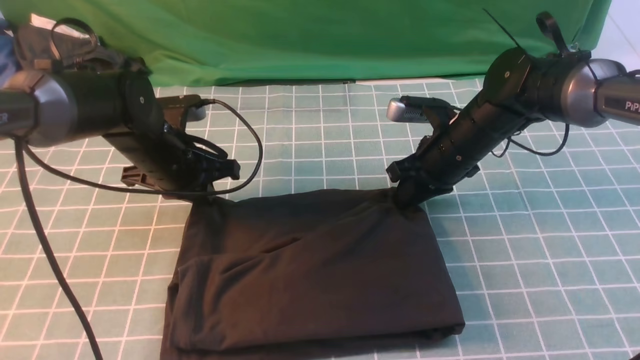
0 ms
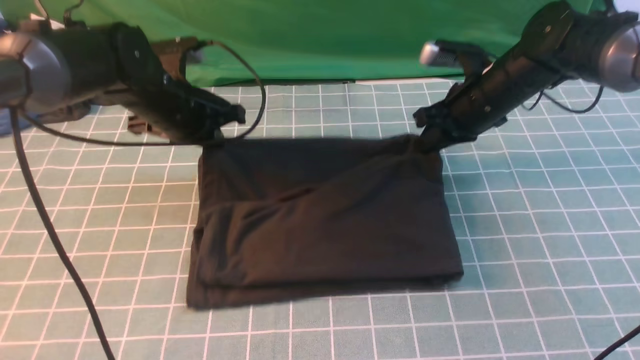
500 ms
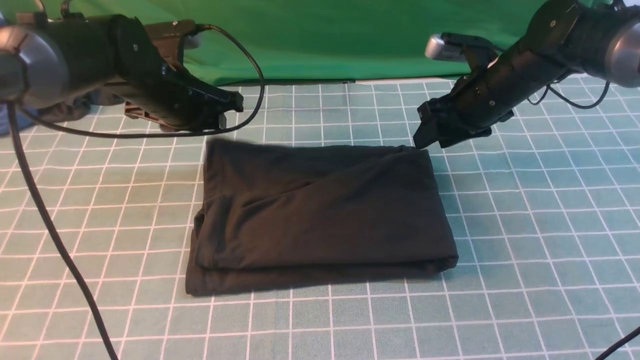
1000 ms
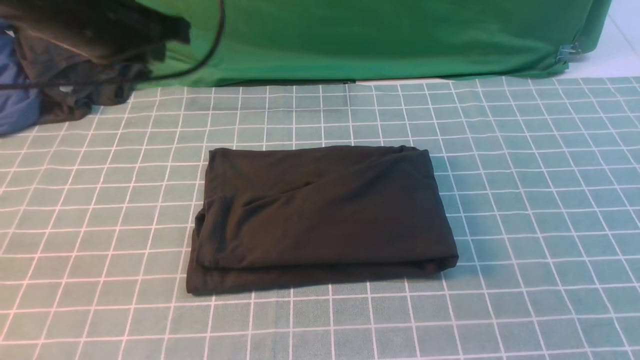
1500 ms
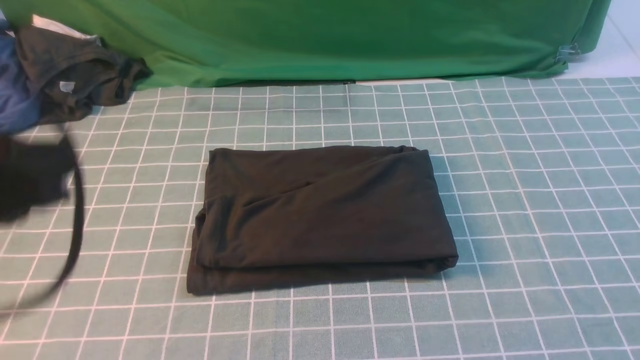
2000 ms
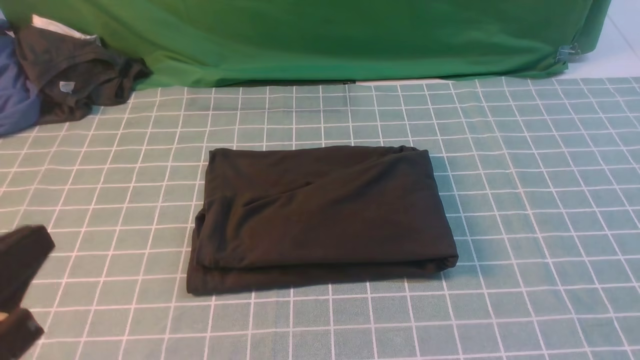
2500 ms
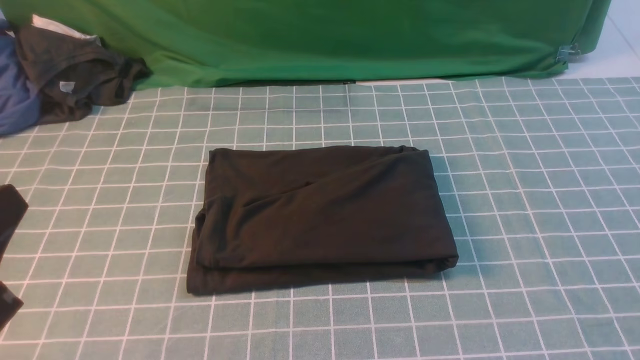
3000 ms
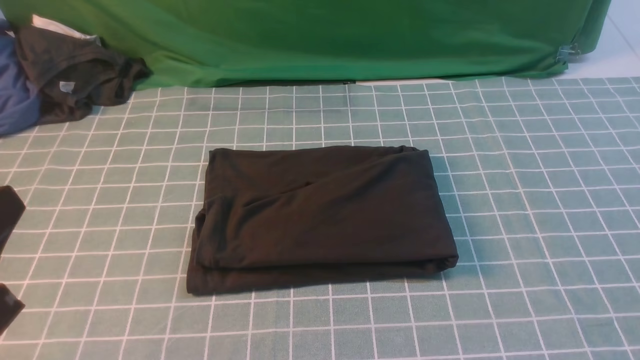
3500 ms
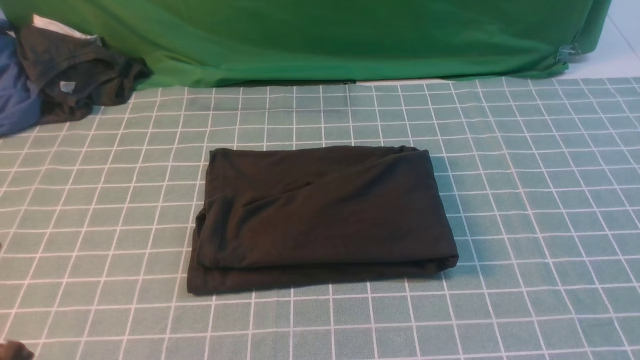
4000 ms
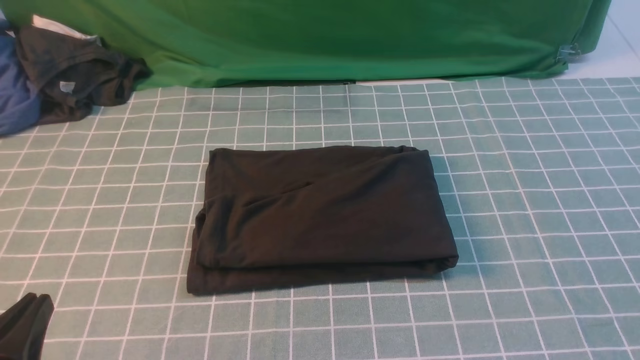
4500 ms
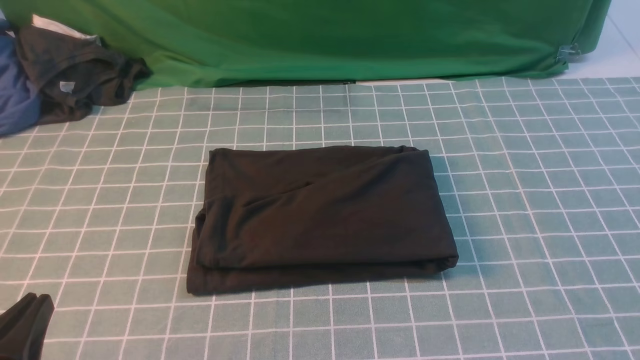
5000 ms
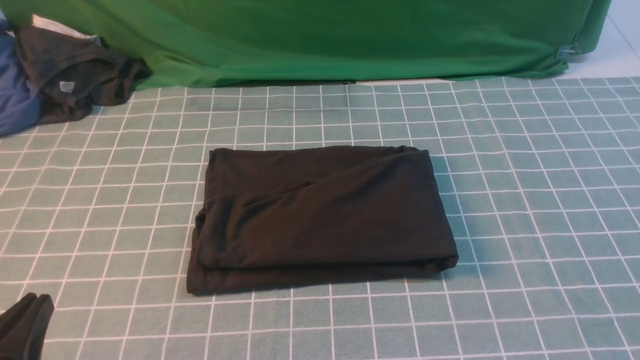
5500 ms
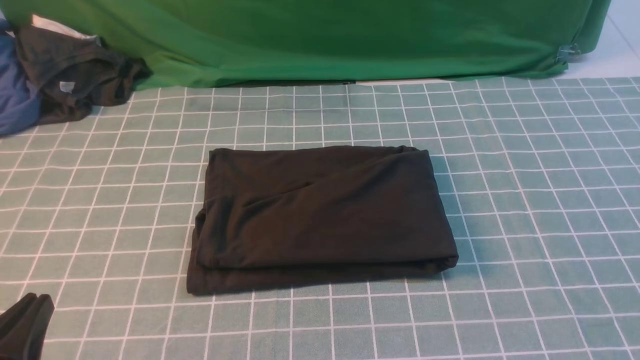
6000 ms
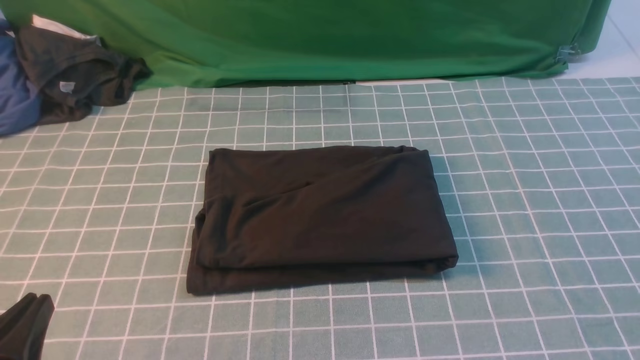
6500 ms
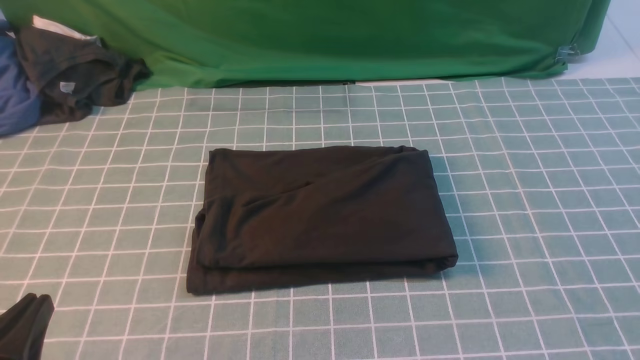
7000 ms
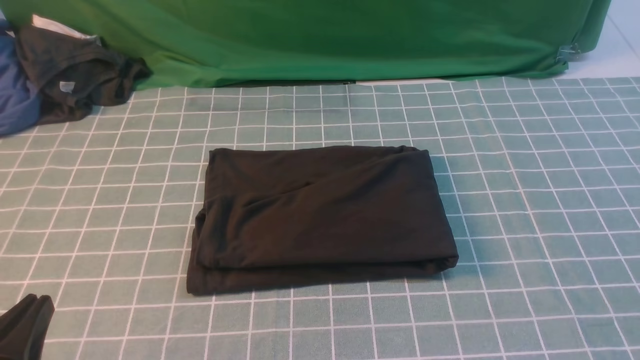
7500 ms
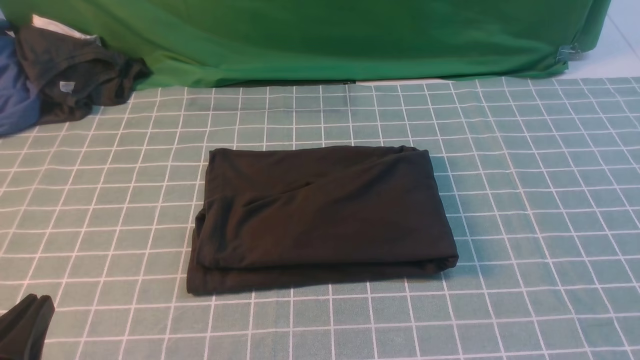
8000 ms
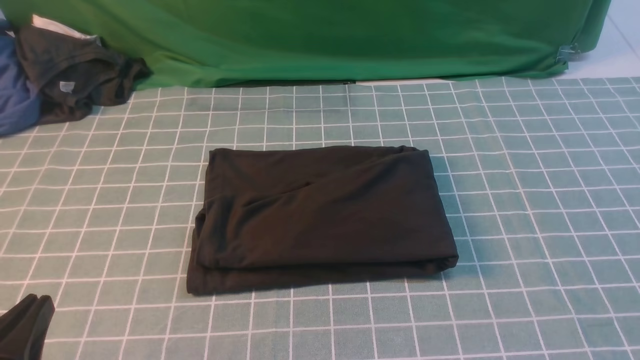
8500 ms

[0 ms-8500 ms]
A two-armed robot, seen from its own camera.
0 ms to 2000 ms: The left gripper heads backward and upward, covering some 30 cm, and opens and closes again; the right gripper goes approximately 50 cm upward, backward and to the right.
2000 ms to 4000 ms: The left gripper heads downward and backward, covering about 15 cm.
4000 ms to 6500 ms: The left gripper is displaced downward by some 5 cm.

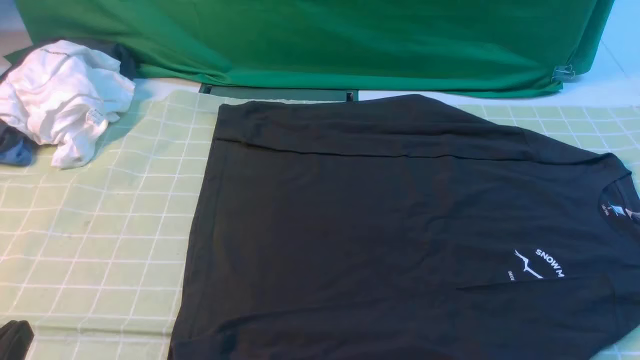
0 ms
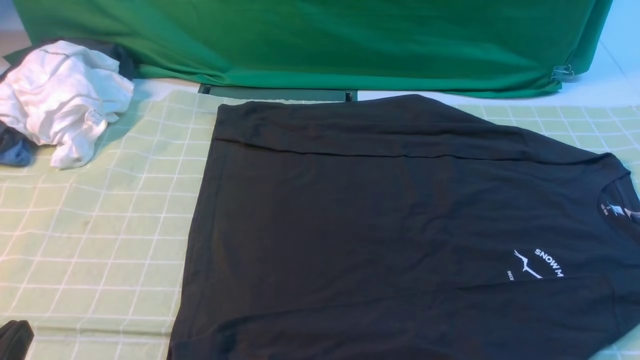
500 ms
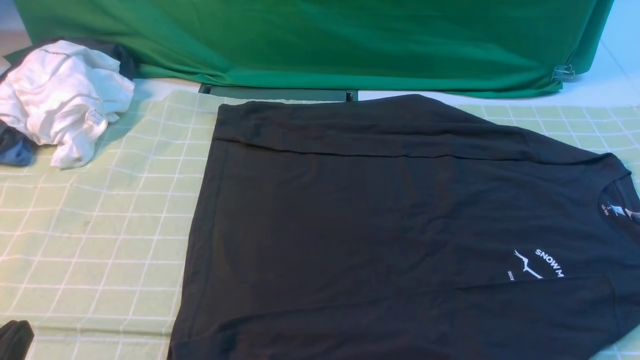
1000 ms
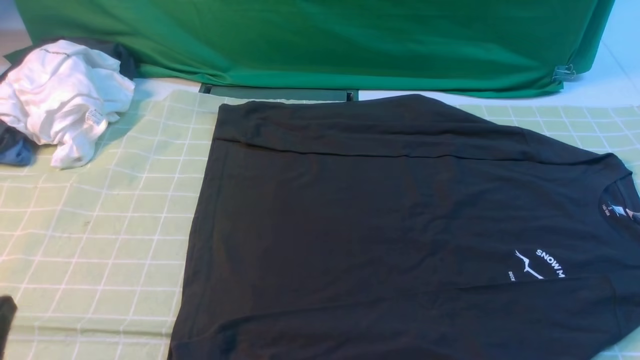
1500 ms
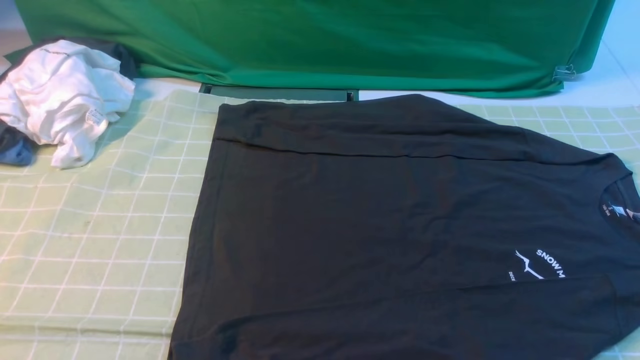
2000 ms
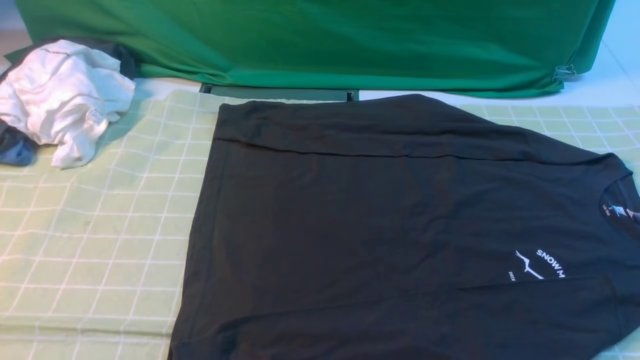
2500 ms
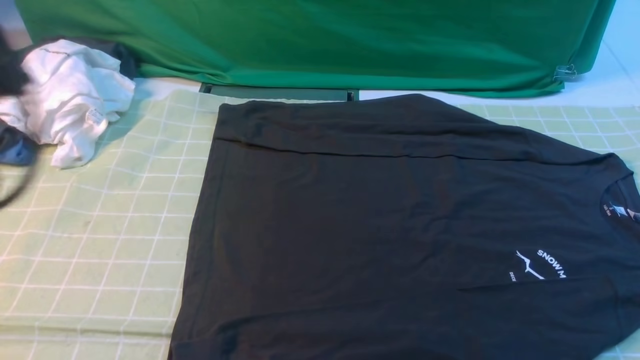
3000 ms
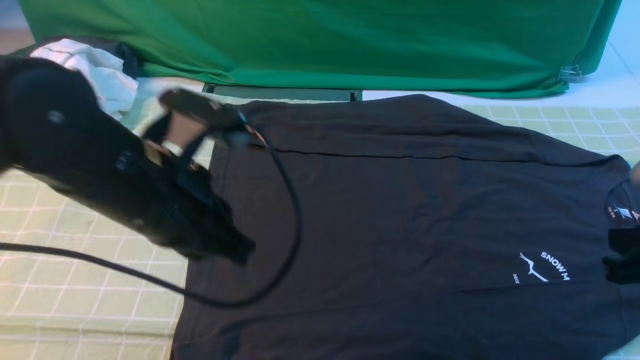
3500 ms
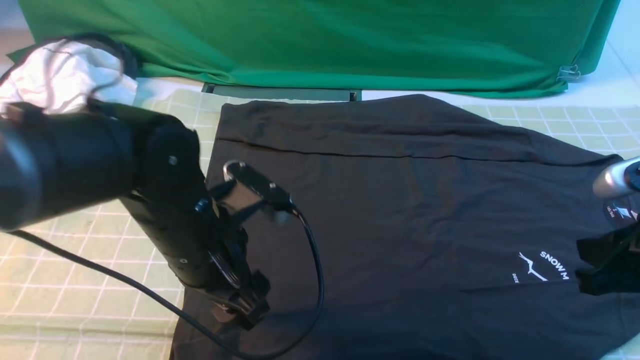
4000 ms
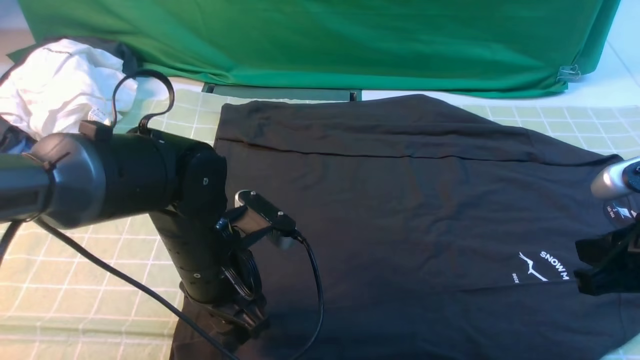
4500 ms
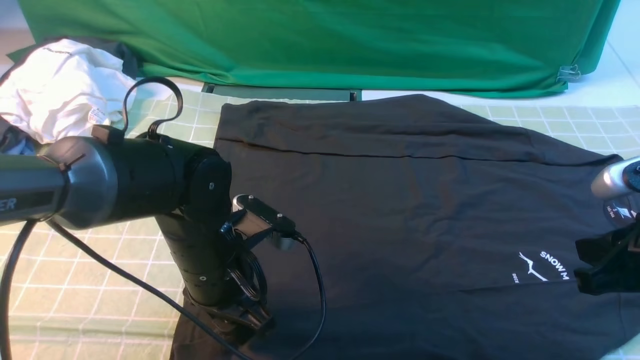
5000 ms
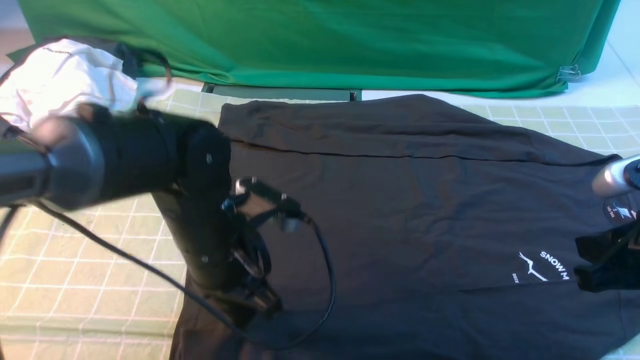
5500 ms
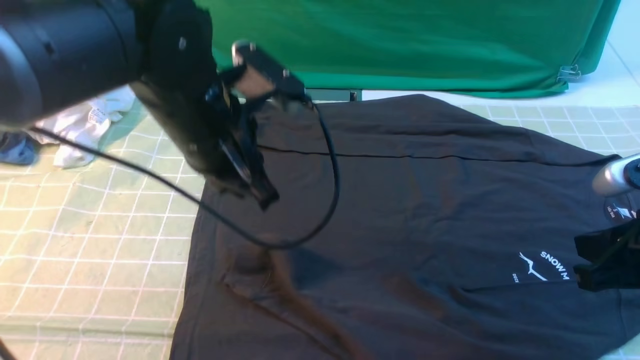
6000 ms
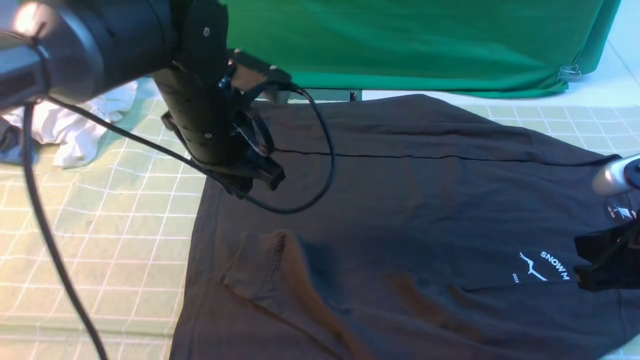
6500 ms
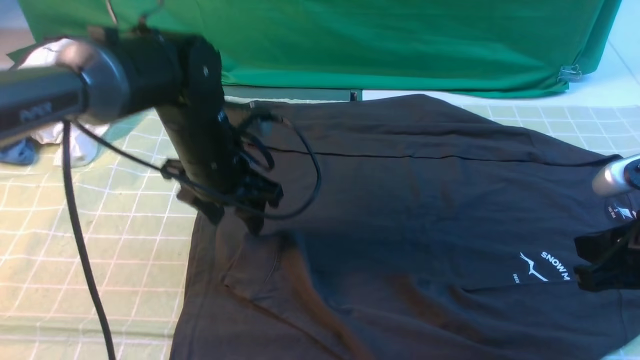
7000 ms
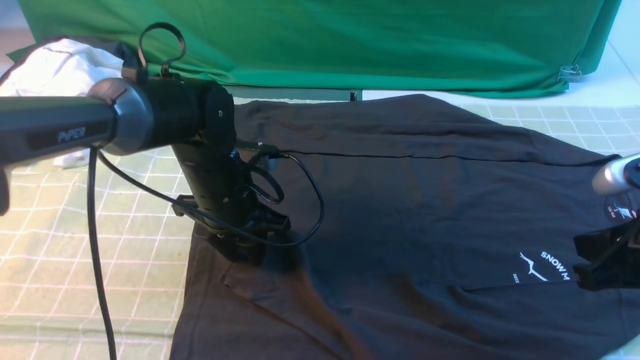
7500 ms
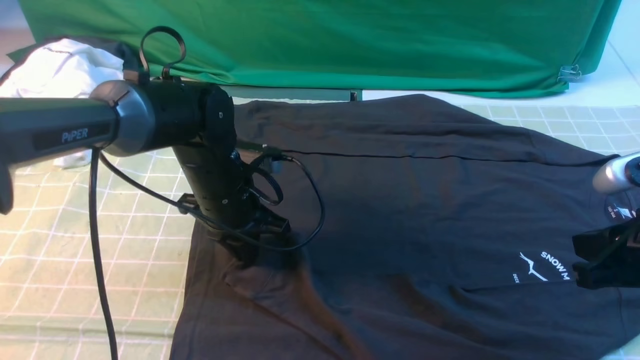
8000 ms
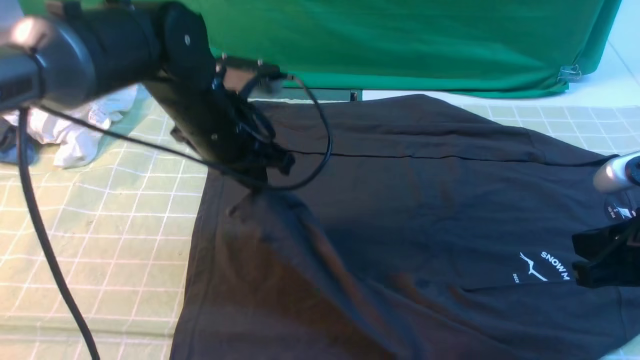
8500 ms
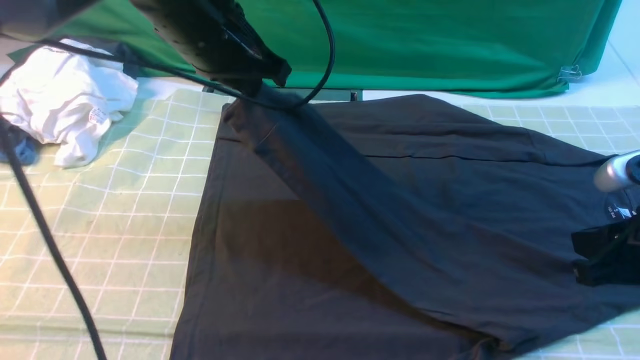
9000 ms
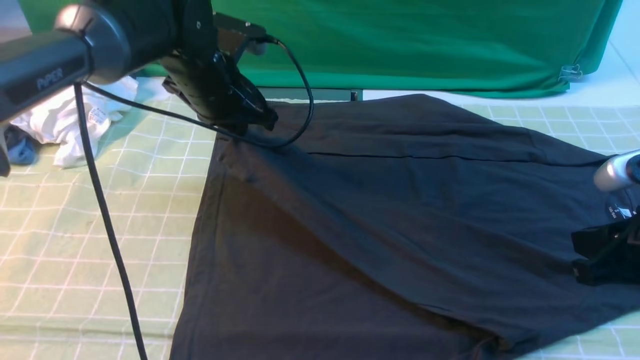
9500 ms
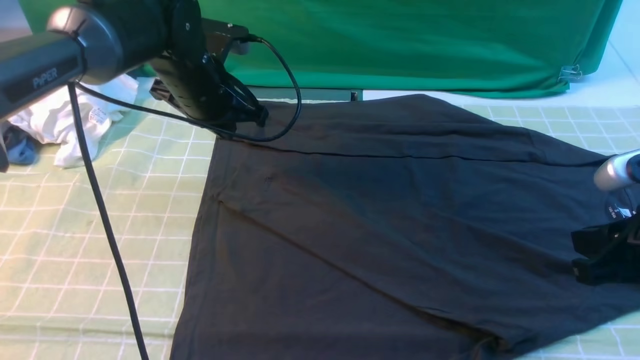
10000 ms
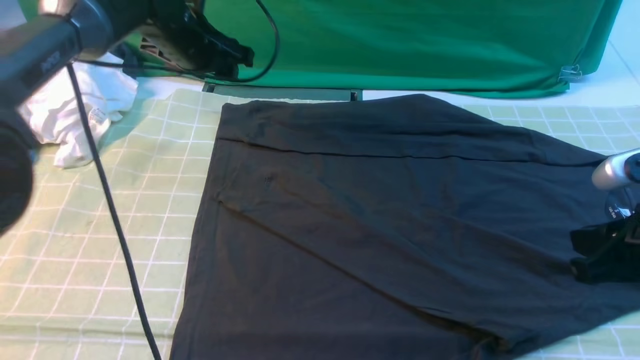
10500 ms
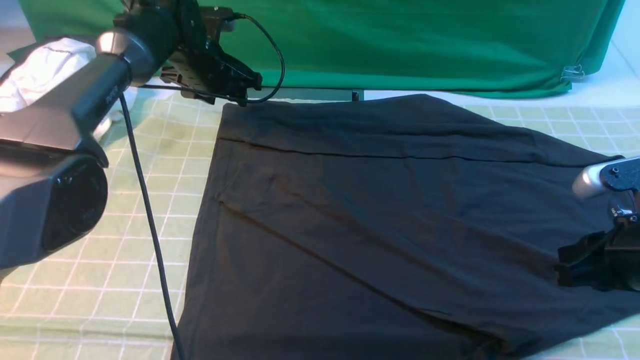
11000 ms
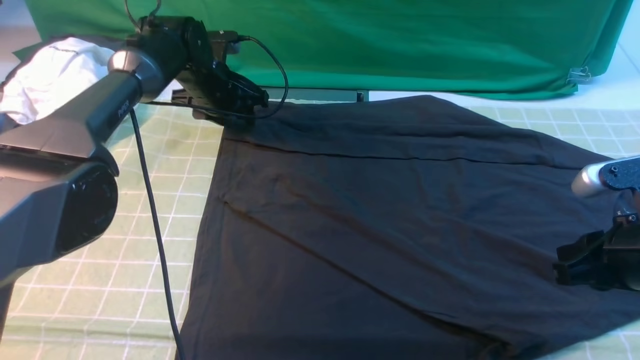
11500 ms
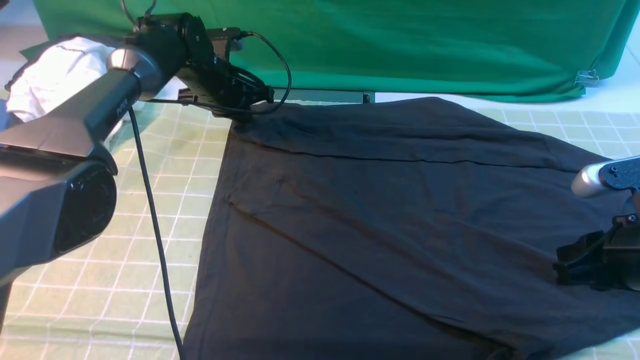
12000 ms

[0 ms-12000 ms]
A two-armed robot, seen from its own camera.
Step, 0 ms to 5000 ms: use the left arm to clamp the cuff closest to it.
Step, 5500 ms to 9500 ms: use the left arm to drag and place the cuff at the centered position on the left edge of the fabric.
2000 ms to 4000 ms: The right gripper shifts some 15 cm forward, and closes. The left gripper travels forward and to the right by roughly 25 cm, and opens its fingers.
4000 ms to 6000 ms: The left gripper shifts about 10 cm upward and forward, and closes its fingers.
6000 ms to 8000 ms: The left gripper is displaced downward and forward by roughly 15 cm, and opens, then closes once more.
8000 ms to 10000 ms: The left gripper shifts about 10 cm forward and upward.
10000 ms to 12000 ms: The left gripper moves forward and downward, about 10 cm, and opens, then closes again.
